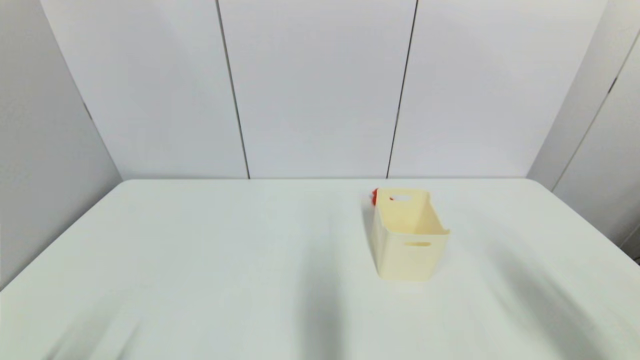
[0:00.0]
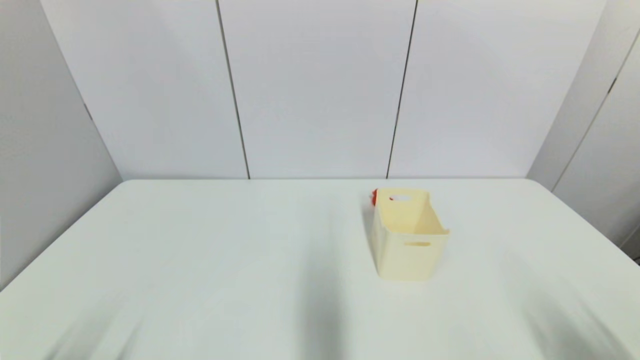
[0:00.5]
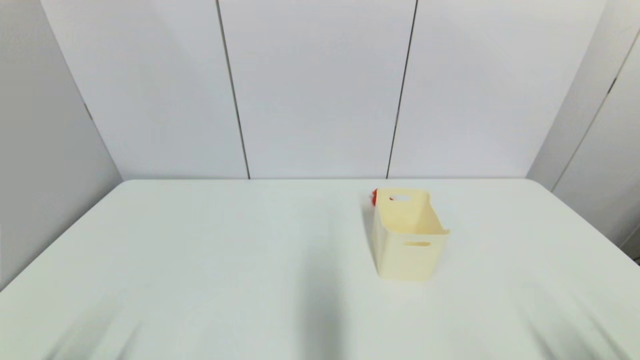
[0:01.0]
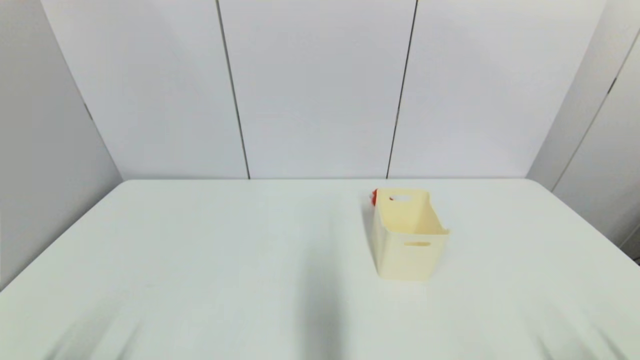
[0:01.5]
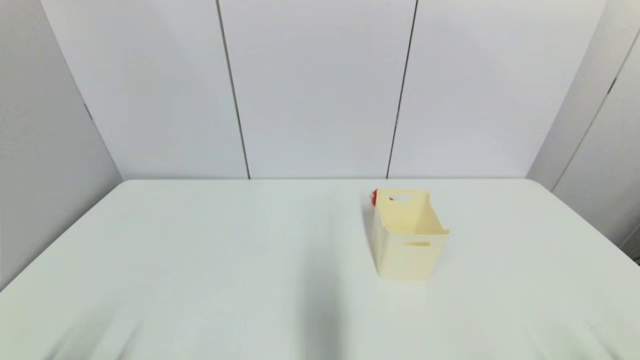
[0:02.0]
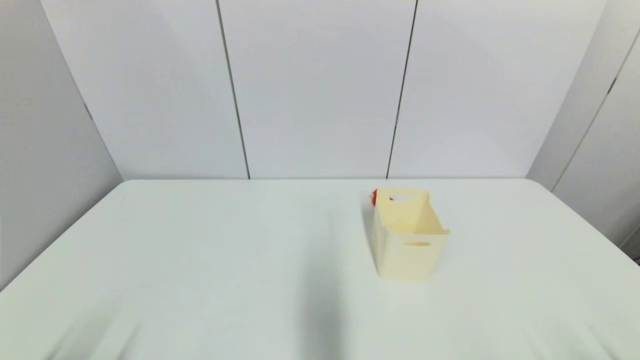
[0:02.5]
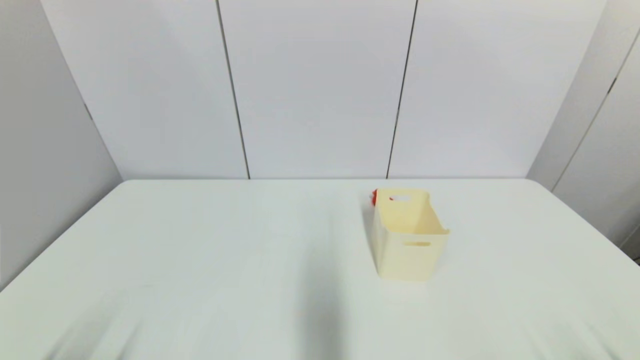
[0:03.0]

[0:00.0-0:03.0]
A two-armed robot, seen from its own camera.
0:00.0 to 0:01.5: The right gripper is displaced downward and backward by roughly 15 cm.

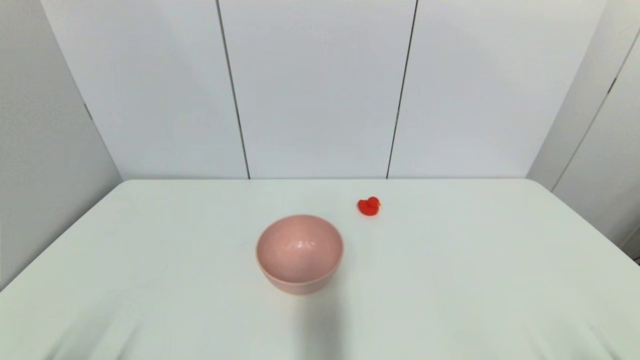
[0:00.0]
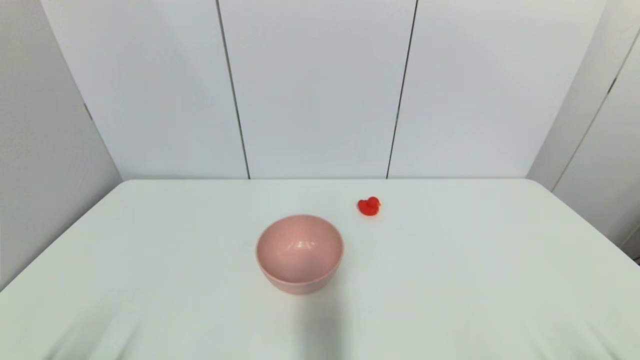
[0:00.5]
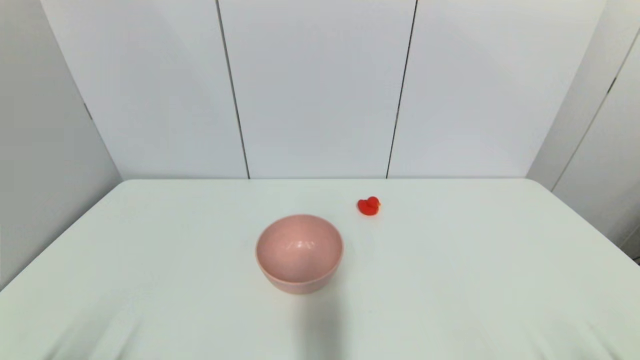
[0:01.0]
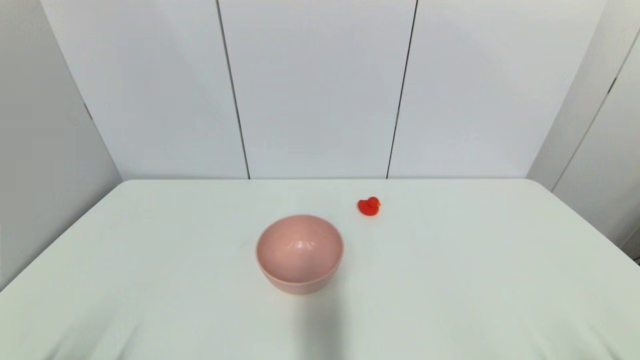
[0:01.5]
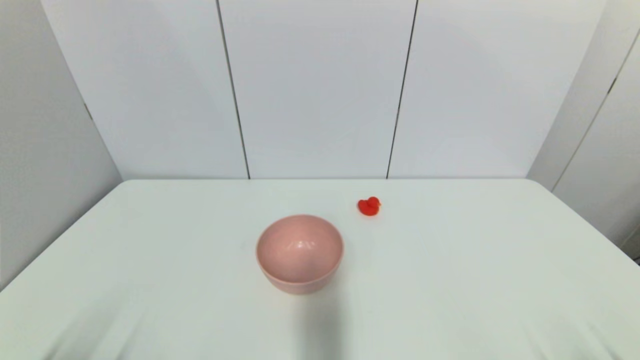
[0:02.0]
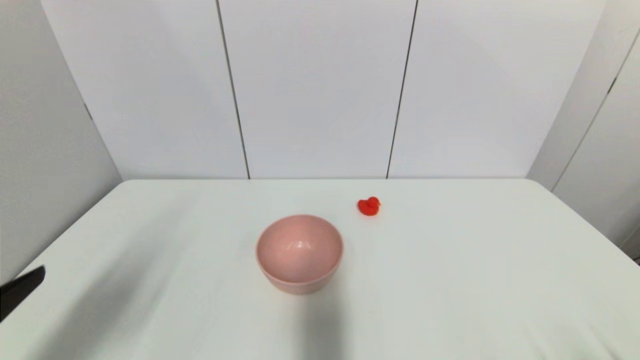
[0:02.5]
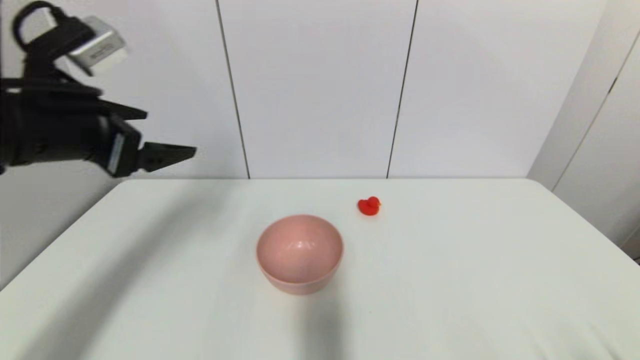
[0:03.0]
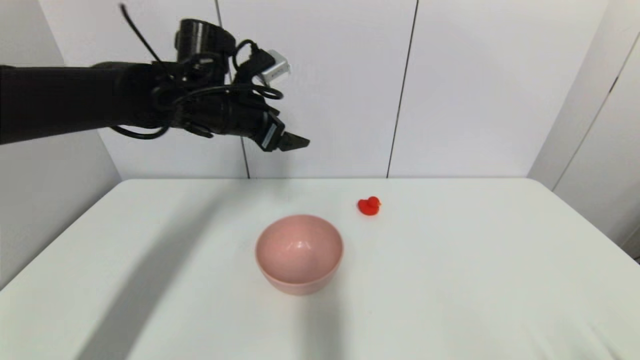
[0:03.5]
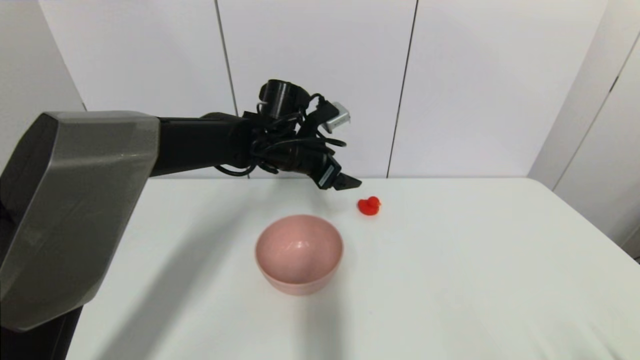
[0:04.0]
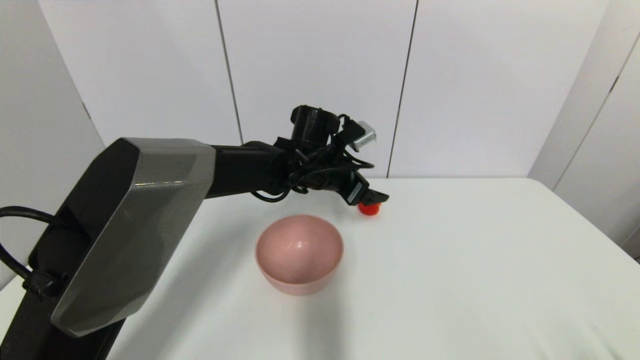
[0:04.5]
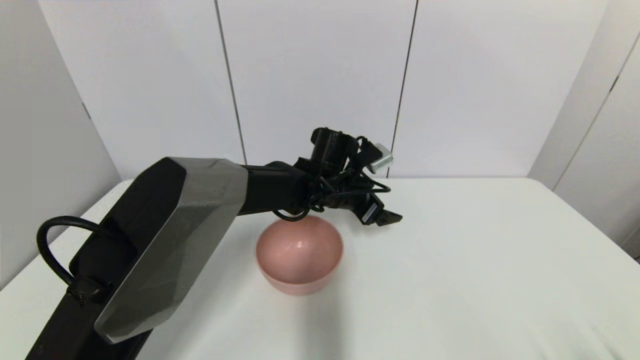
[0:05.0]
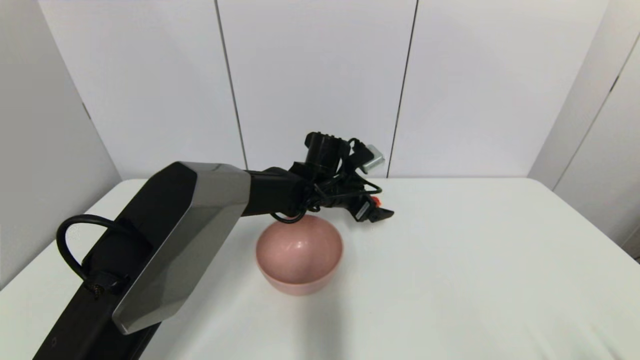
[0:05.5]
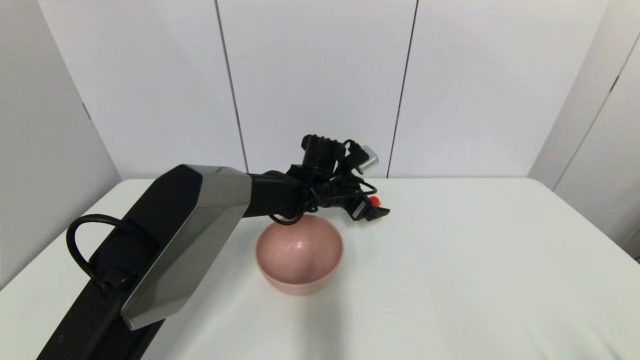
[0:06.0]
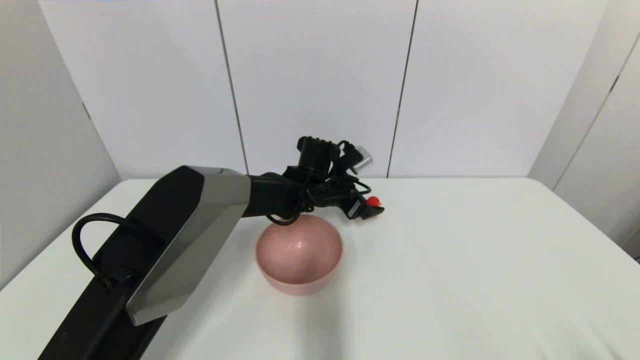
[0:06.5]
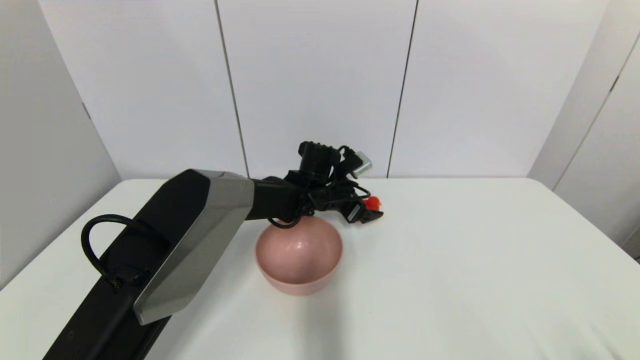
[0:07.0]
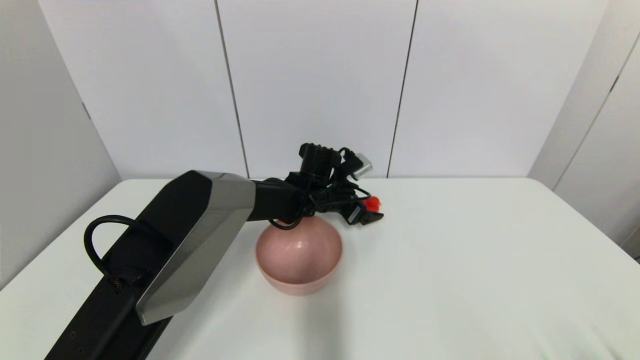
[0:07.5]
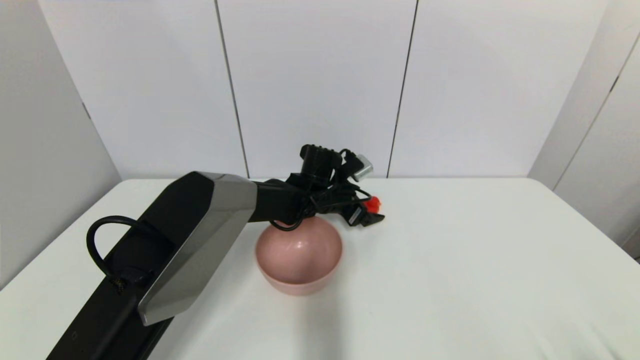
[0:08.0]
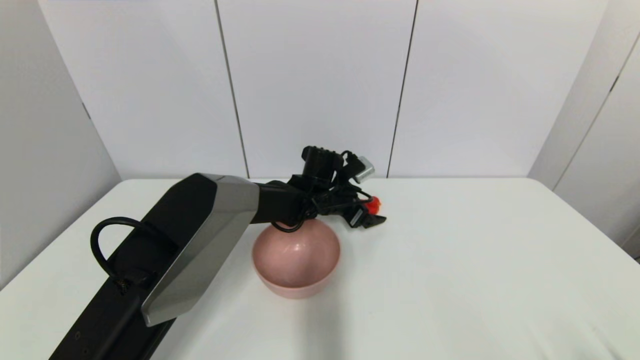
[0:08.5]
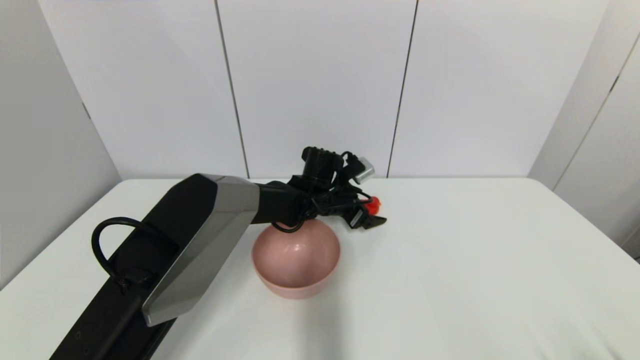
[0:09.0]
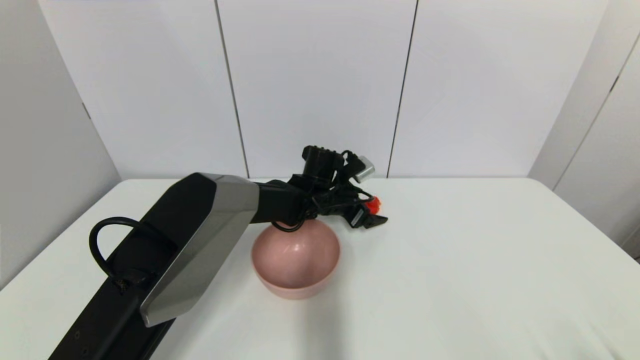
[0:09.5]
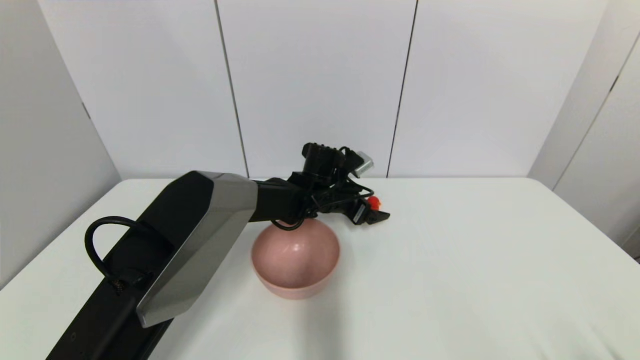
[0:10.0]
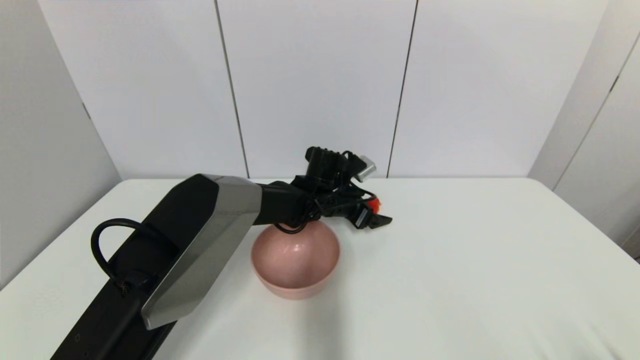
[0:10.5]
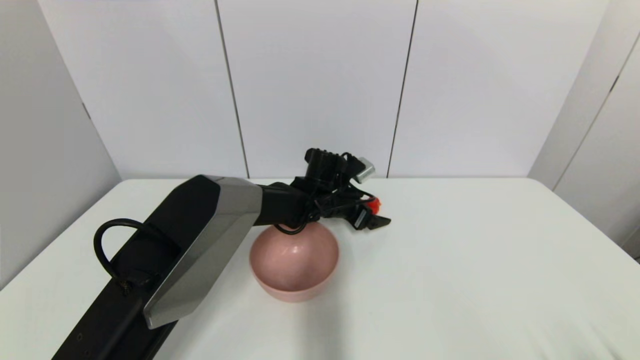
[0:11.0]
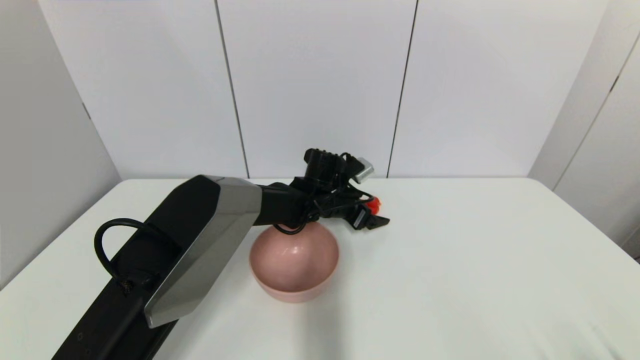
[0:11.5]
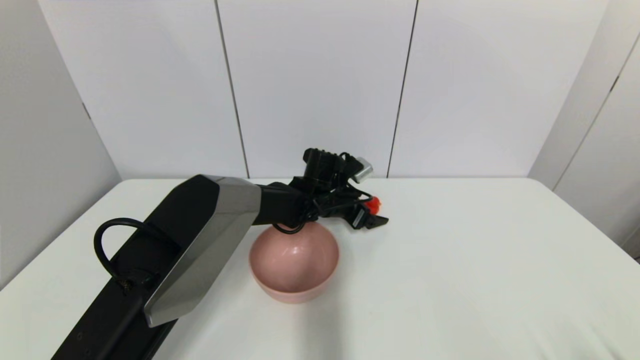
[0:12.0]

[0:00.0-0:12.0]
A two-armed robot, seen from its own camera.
0:00.0 to 0:02.0: Neither gripper changes place.
0:02.0 to 0:04.0: The left gripper travels forward and to the right by some 50 cm.
0:04.0 to 0:06.0: The left gripper goes some 10 cm downward and to the right.
0:06.0 to 0:10.0: There are only small adjustments of the grippers.
0:10.0 to 0:12.0: Both grippers stay put.

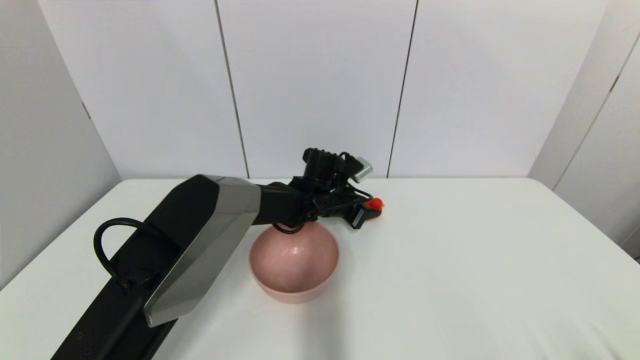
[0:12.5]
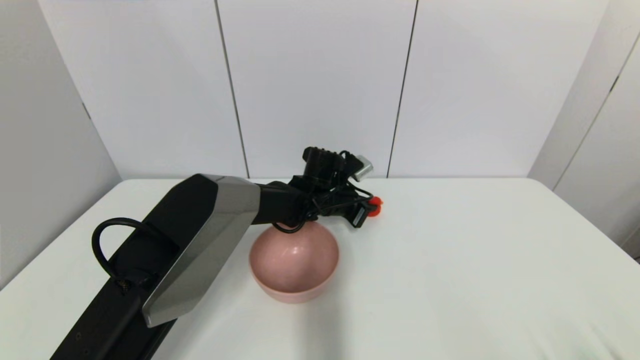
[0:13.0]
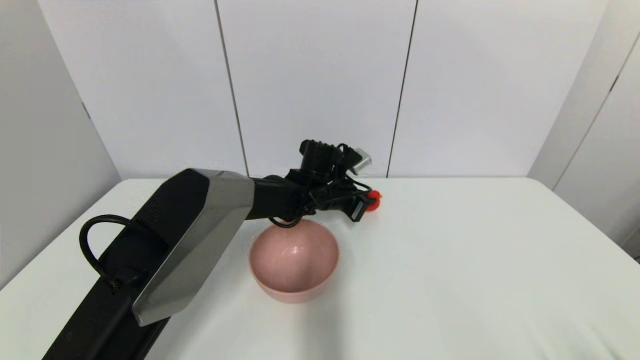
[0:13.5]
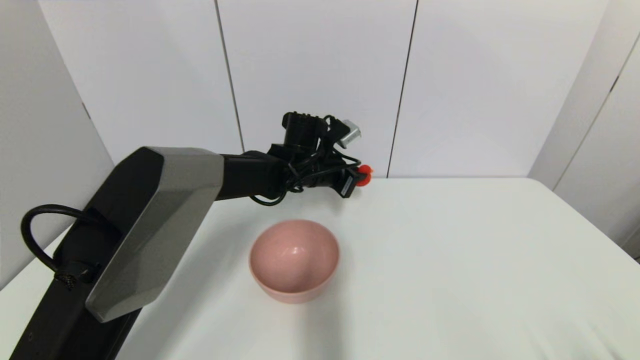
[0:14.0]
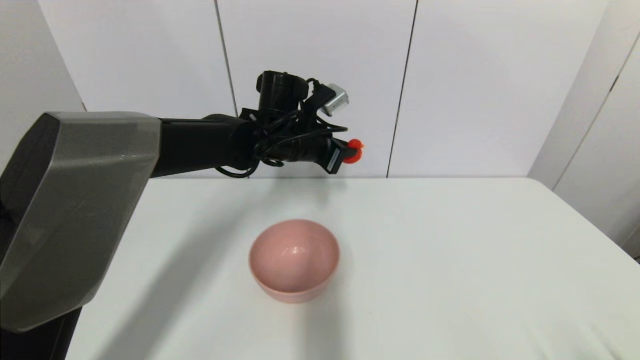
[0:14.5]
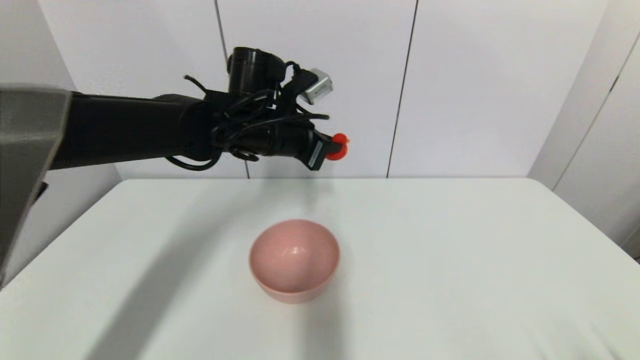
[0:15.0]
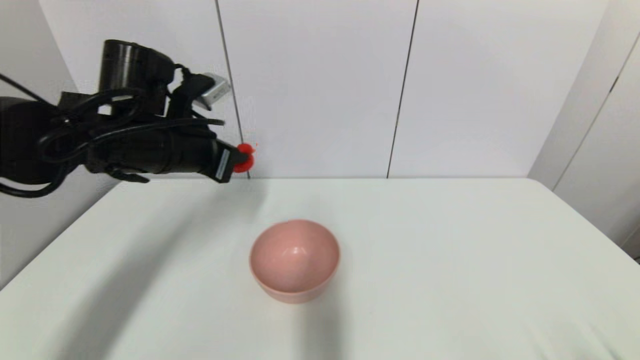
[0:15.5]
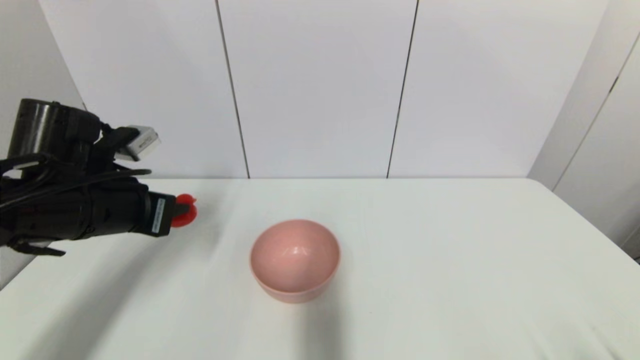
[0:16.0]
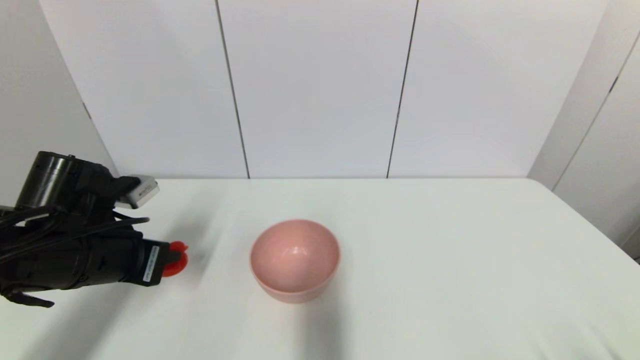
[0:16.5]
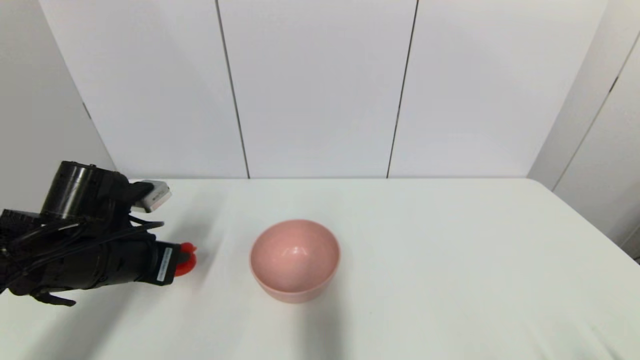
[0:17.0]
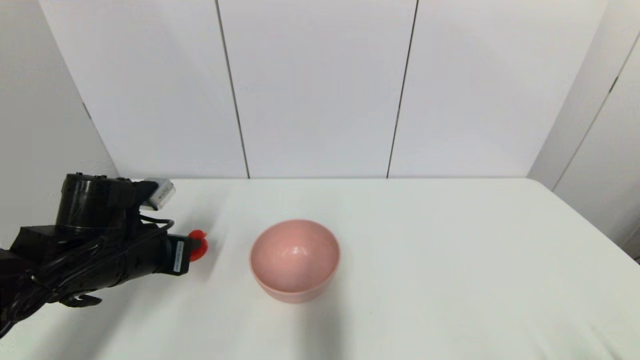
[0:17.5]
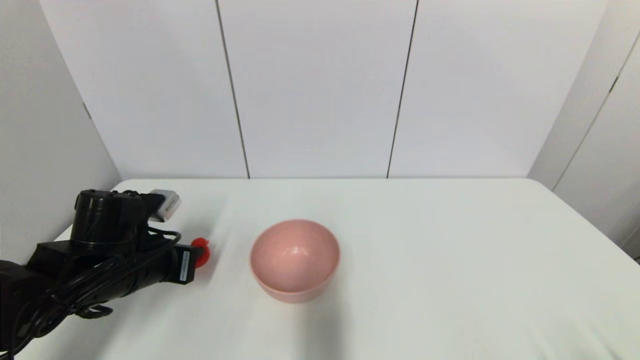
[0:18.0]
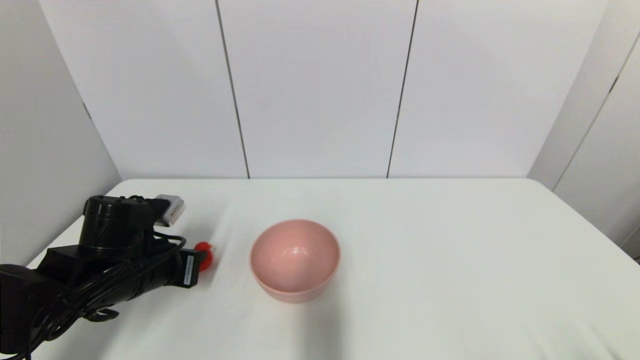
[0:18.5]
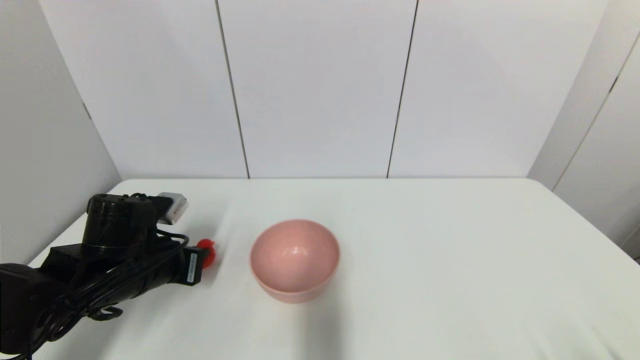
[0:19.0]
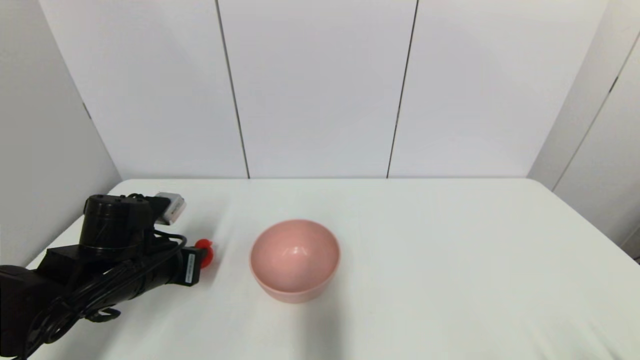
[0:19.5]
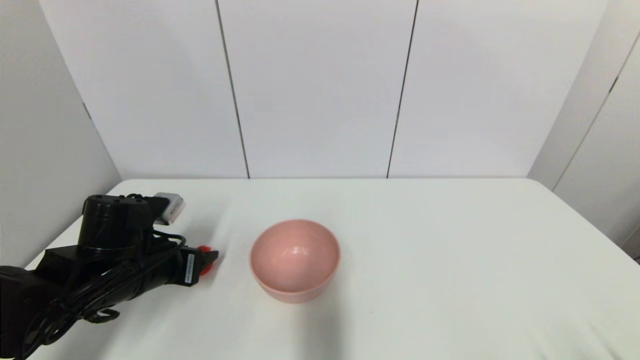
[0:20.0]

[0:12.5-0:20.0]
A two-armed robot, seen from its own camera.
0:12.5 to 0:14.5: The left gripper travels upward and to the left by some 15 cm, and closes.
0:14.5 to 0:16.5: The left gripper heads to the left and backward, covering about 30 cm.
0:16.5 to 0:18.0: The left gripper is displaced downward by some 5 cm.
0:18.0 to 0:20.0: The left gripper opens its fingers.
